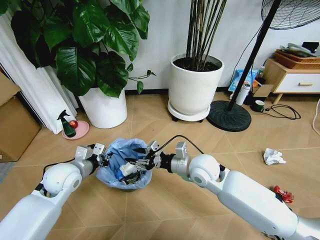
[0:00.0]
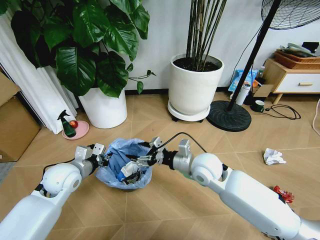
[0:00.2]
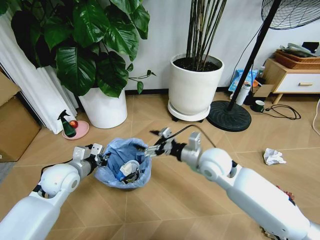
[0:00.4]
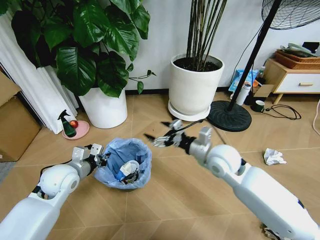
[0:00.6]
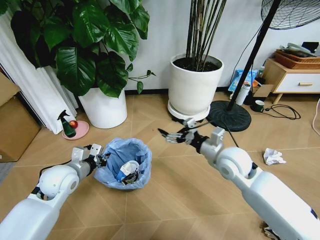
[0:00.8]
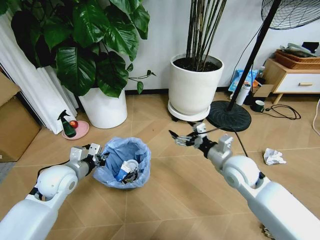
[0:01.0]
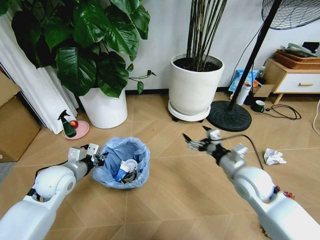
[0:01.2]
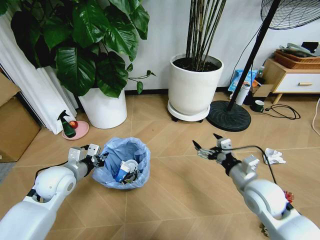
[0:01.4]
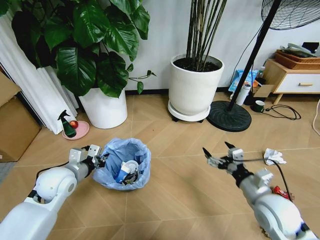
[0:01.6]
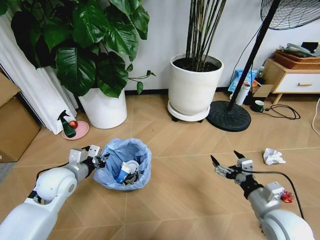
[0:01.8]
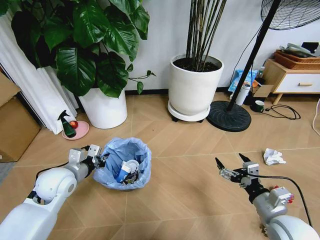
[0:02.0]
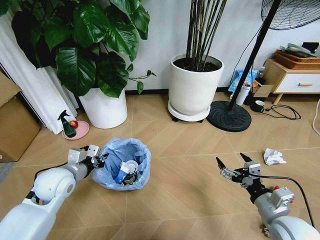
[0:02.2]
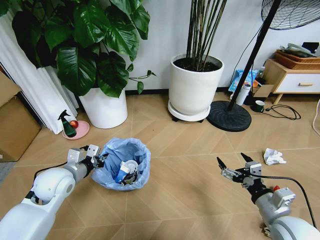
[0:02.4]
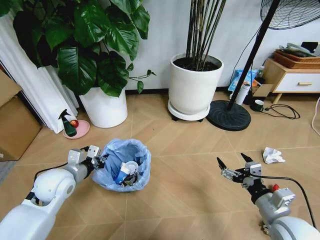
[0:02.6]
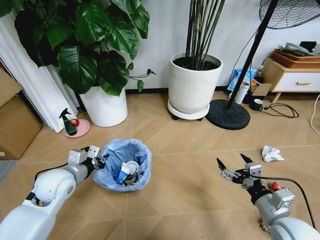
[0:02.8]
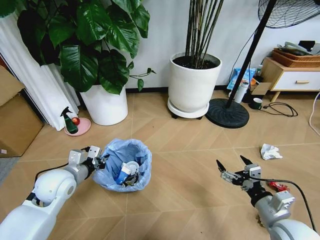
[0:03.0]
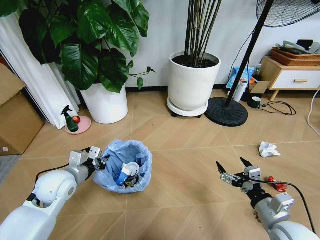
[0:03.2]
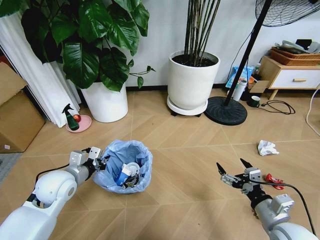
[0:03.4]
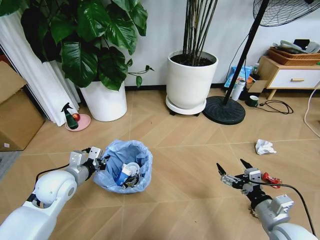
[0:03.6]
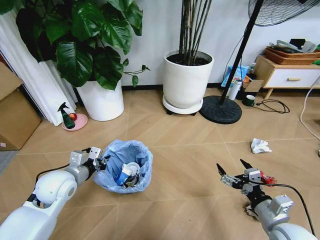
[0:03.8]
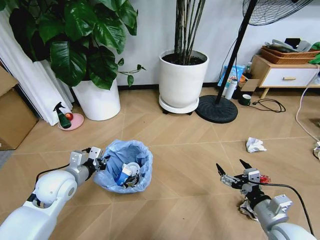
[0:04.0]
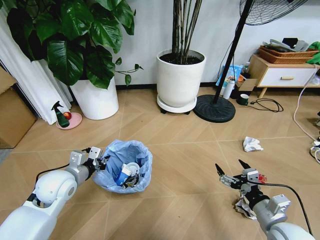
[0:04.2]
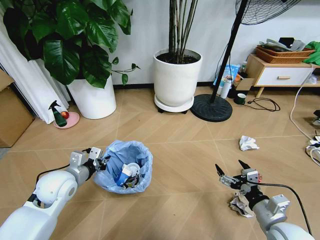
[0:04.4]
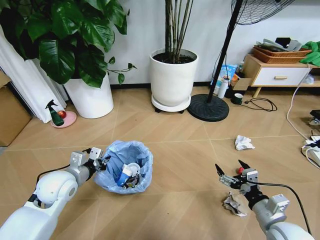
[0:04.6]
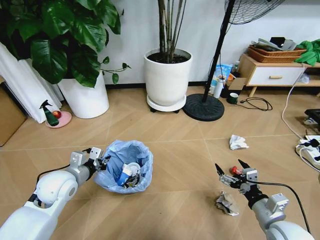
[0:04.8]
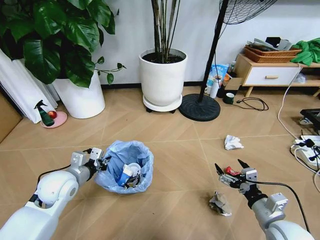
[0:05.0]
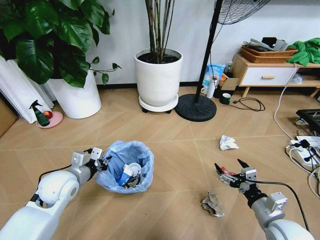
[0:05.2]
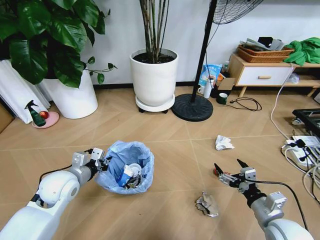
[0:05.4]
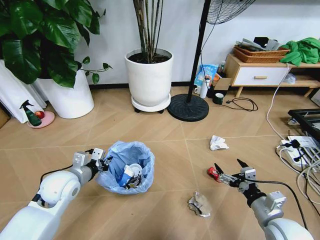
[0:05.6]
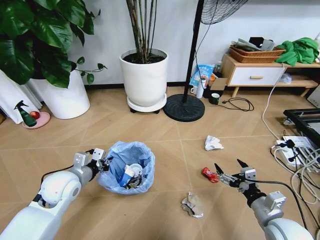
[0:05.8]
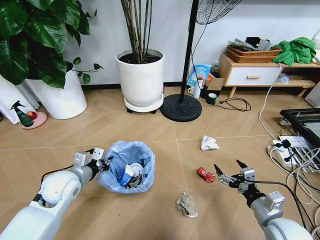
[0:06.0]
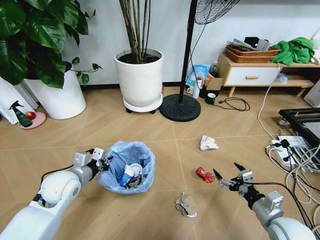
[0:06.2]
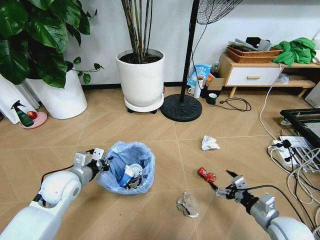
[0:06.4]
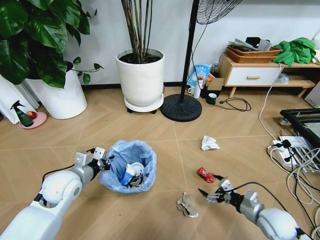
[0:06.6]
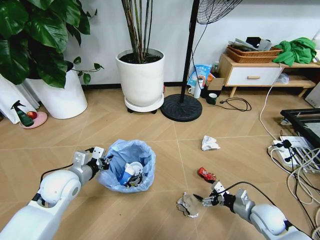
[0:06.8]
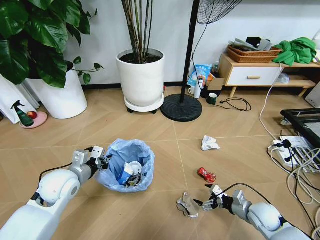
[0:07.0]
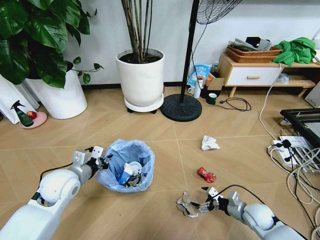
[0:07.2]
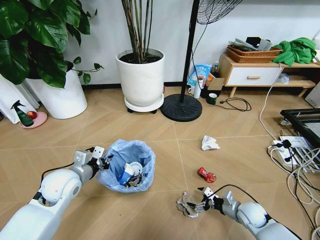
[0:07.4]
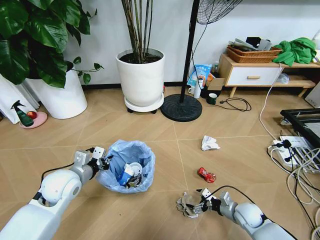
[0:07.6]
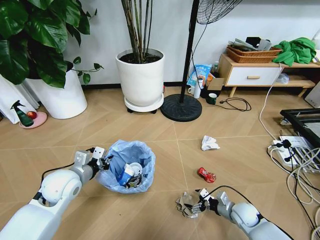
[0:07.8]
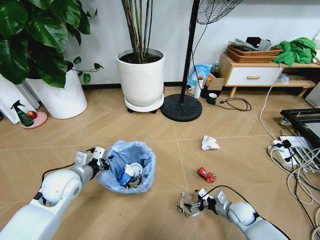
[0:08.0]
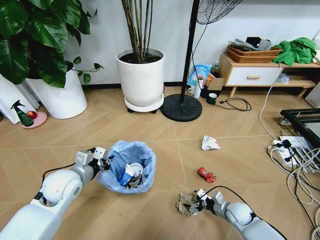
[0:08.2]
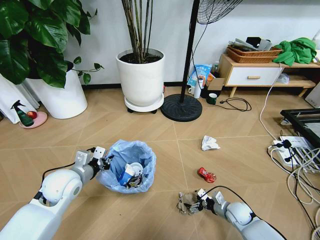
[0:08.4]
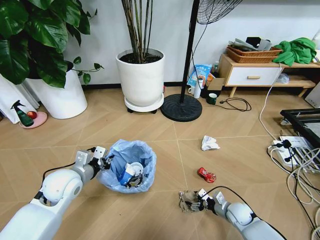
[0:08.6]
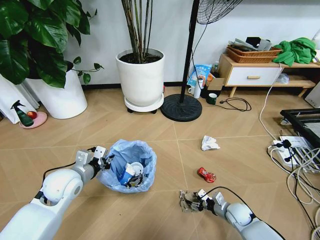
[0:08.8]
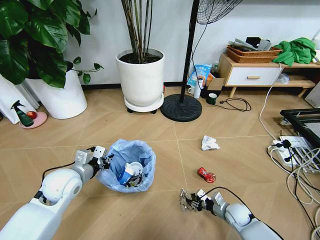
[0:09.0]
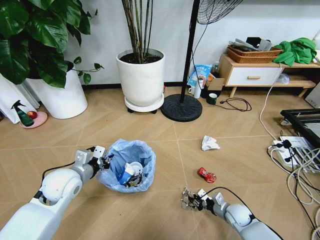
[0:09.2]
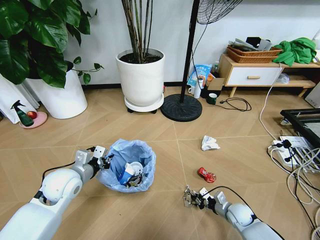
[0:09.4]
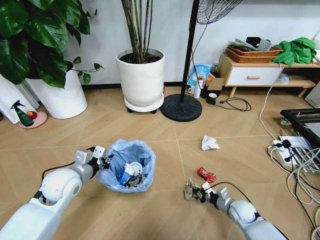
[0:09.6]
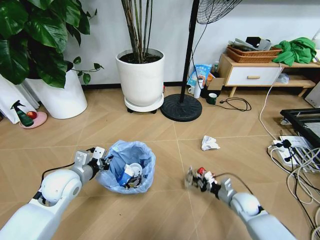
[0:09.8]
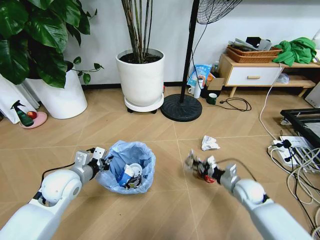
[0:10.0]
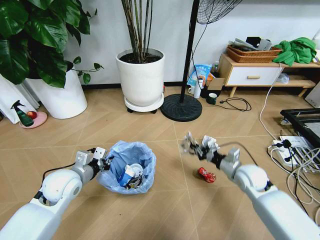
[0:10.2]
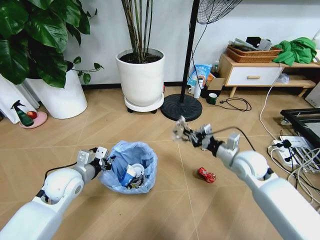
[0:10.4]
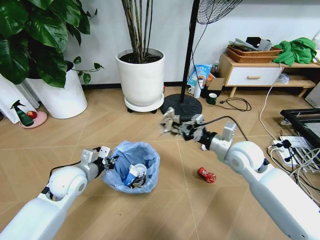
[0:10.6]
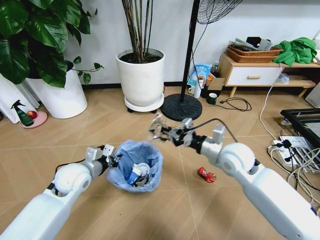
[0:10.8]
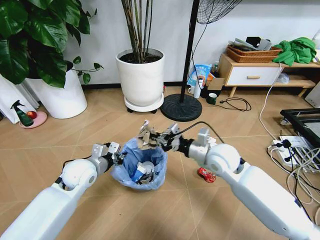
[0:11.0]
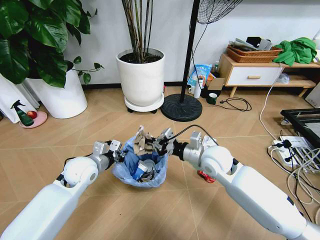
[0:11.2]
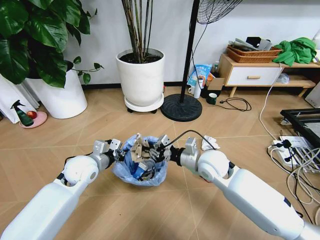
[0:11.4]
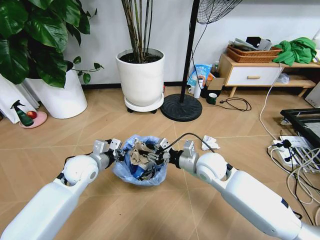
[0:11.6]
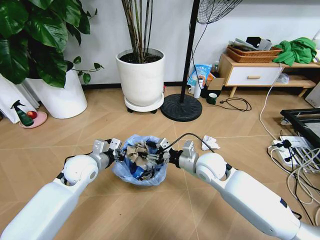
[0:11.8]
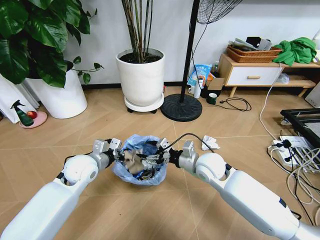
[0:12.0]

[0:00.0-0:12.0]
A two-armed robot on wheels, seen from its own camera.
Task of the whole recording: Pick up the trash bin and place the garbage on the floor into it.
0:00.0 to 0:01.6: The right gripper moves to the right and backward, some 20 cm, and opens its fingers.
0:01.6 to 0:03.0: The right gripper goes about 5 cm backward.
0:06.0 to 0:07.6: The right gripper is displaced downward and forward by roughly 20 cm.
0:07.6 to 0:09.0: The right gripper closes.
0:09.0 to 0:10.4: The right gripper moves upward, about 25 cm, and closes.
0:10.4 to 0:12.0: The left gripper ends up some 5 cm from where it was; the right gripper shifts about 15 cm to the left, and opens.

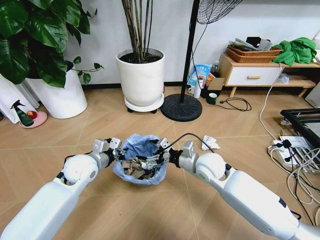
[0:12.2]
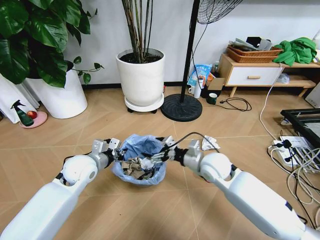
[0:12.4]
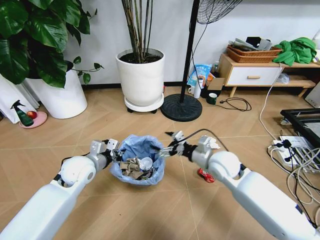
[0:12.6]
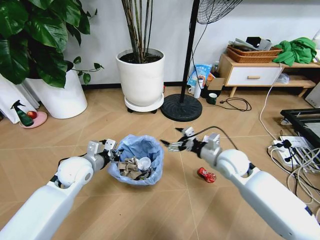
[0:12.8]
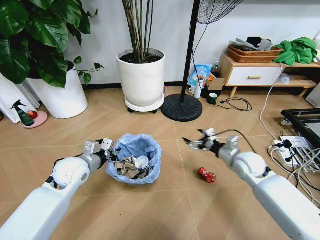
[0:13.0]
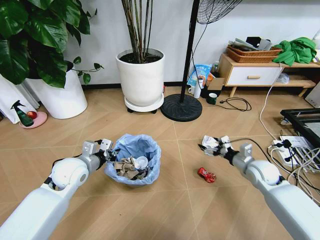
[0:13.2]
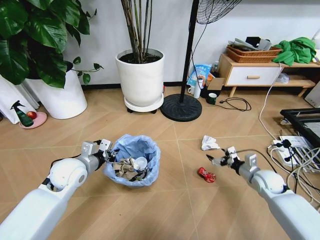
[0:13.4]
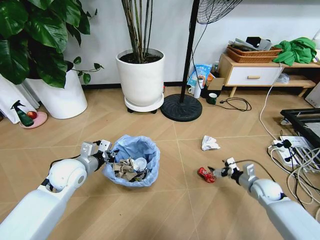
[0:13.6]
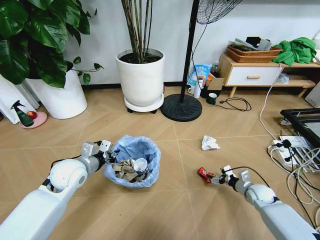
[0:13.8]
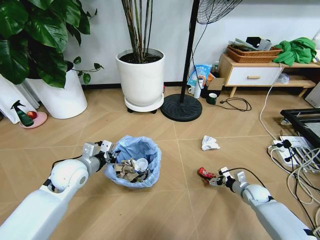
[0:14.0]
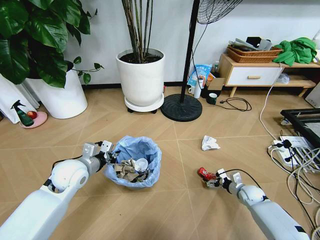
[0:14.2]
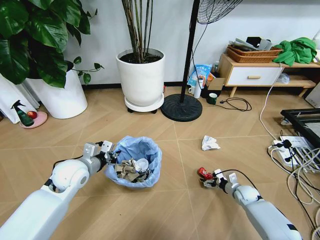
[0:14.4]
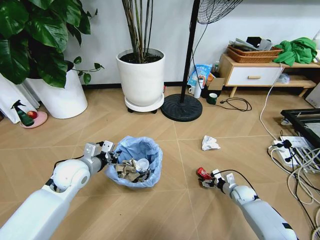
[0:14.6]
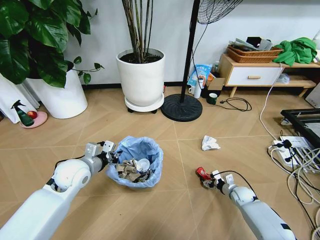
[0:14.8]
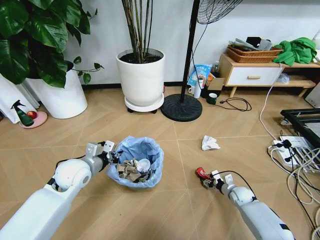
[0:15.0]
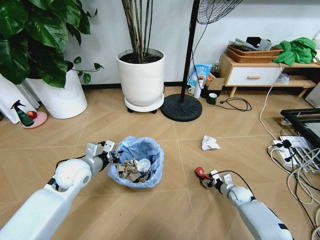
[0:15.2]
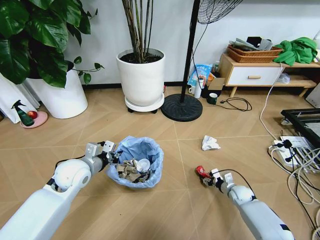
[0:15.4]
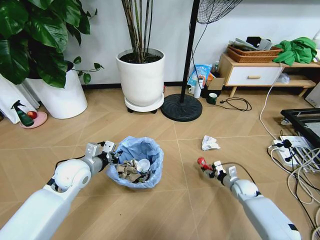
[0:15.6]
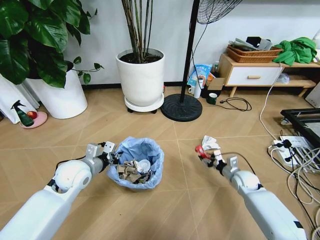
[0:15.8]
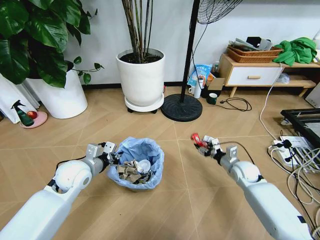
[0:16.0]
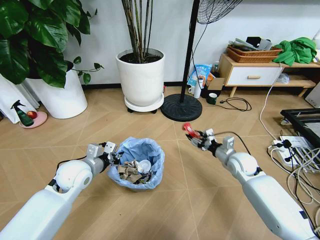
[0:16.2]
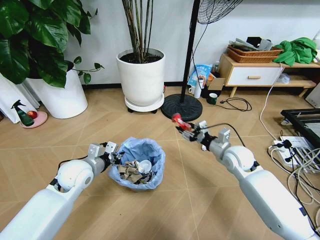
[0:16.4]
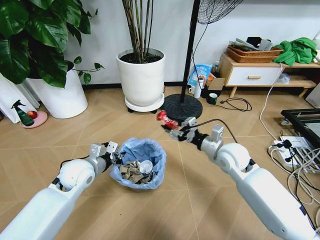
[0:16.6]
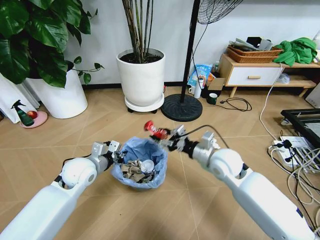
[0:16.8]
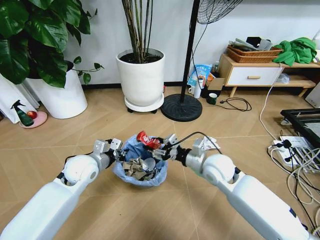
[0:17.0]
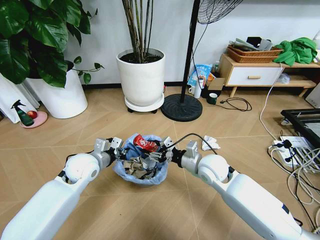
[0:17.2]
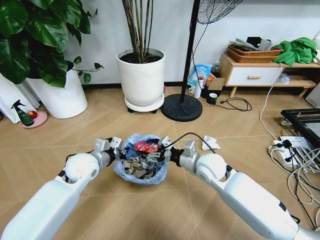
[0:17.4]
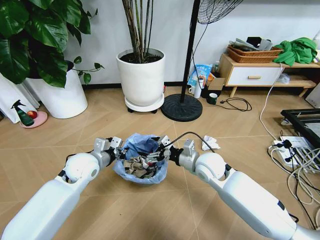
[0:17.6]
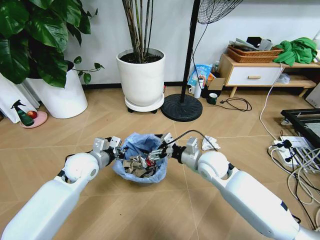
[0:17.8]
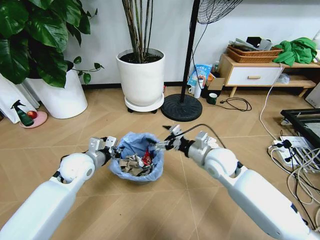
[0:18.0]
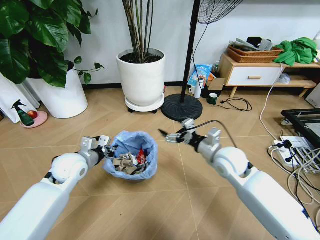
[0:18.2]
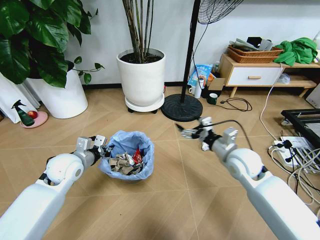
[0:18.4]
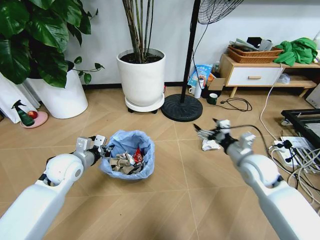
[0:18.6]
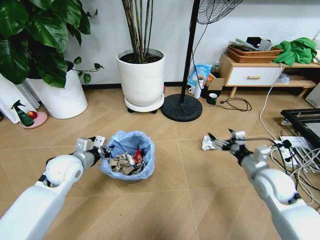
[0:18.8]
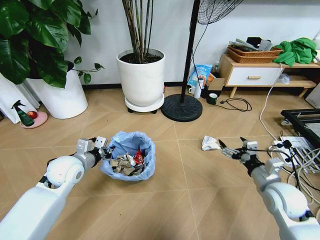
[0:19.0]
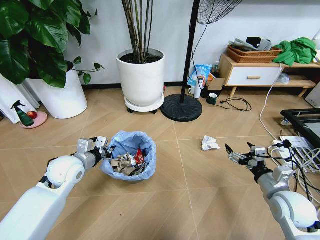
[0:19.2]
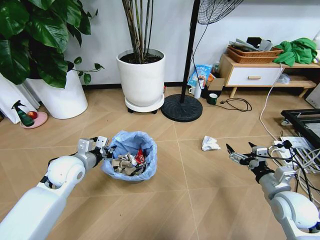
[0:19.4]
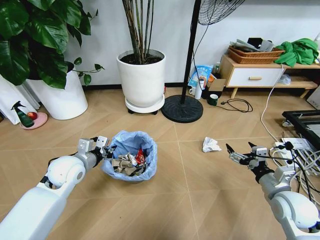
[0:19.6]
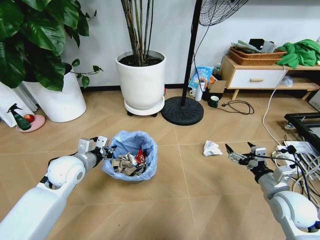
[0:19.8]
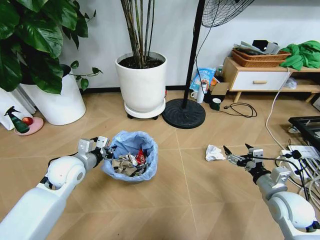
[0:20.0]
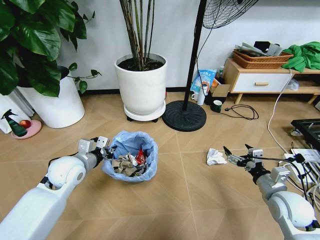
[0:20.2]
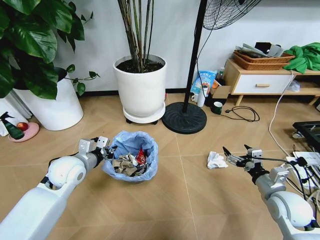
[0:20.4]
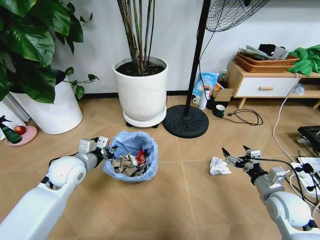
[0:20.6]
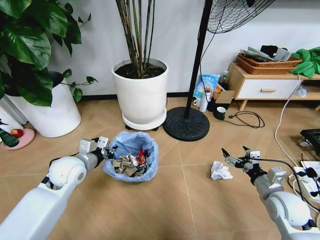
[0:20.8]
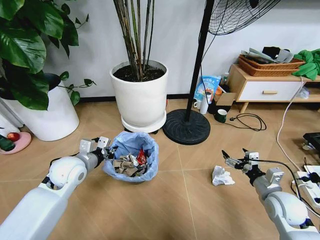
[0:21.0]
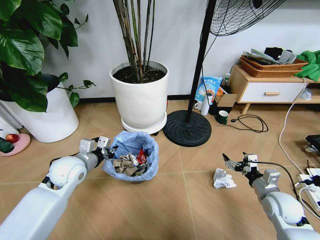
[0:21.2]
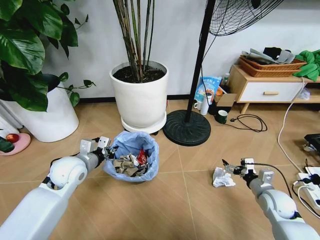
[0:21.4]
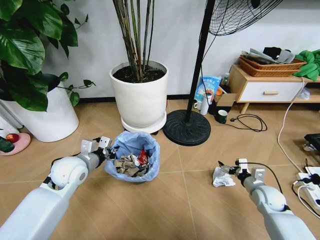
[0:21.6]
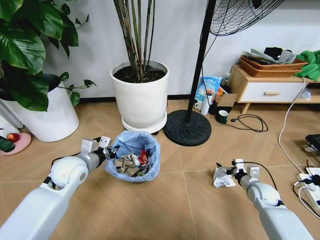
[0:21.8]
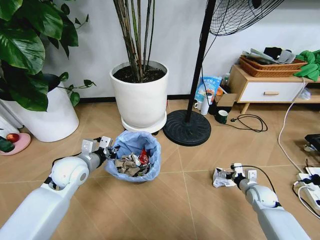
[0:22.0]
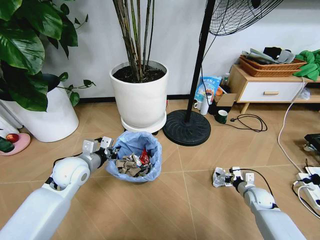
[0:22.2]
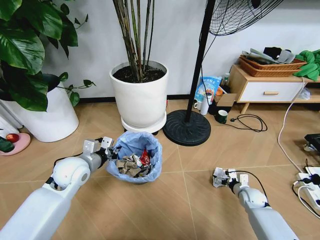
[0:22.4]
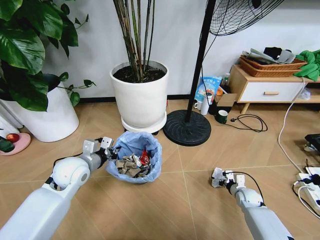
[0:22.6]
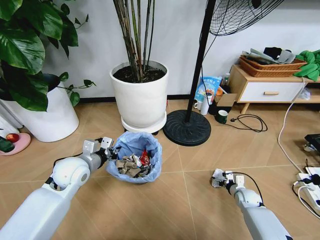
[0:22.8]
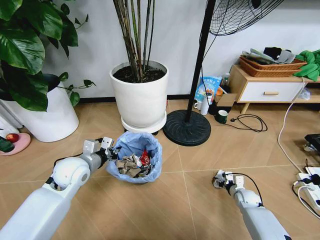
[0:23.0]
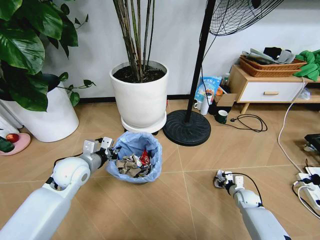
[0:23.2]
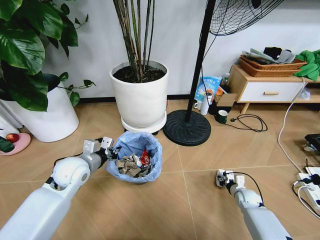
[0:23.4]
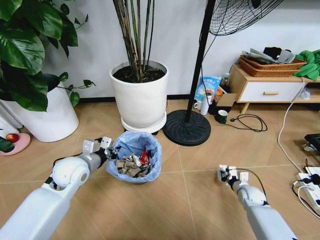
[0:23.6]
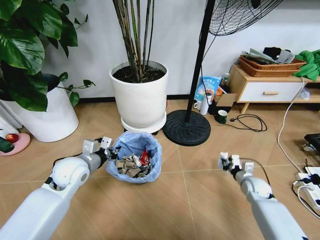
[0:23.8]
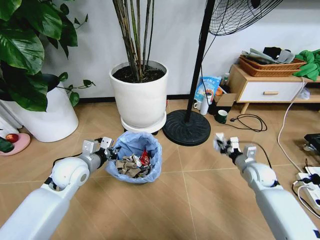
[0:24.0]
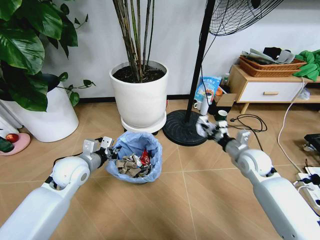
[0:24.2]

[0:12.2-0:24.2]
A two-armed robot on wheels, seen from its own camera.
Task of the whole recording: Pick up the trash bin and place the garbage on the floor into it.
0:12.2 to 0:13.8: The right gripper shifts some 30 cm to the right and downward.
0:13.8 to 0:15.2: The right gripper moves downward and to the left, roughly 10 cm, and closes its fingers.
0:15.2 to 0:16.6: The right gripper moves upward and to the left, some 30 cm.
0:16.6 to 0:18.2: The right gripper goes to the left and returns, approximately 10 cm each way, and opens.
0:18.2 to 0:19.8: The right gripper is displaced to the right and backward by approximately 20 cm.
0:19.8 to 0:21.2: The right gripper heads downward, covering about 5 cm.
0:21.2 to 0:22.6: The right gripper moves downward and forward, some 15 cm.
0:22.6 to 0:24.2: The right gripper goes roughly 25 cm upward, and closes its fingers.
